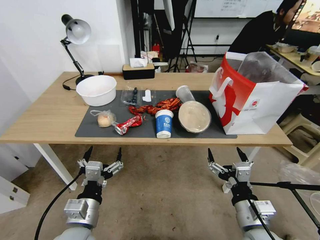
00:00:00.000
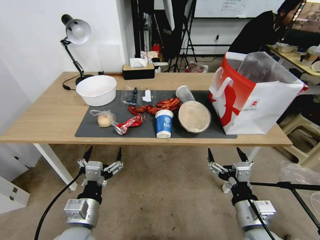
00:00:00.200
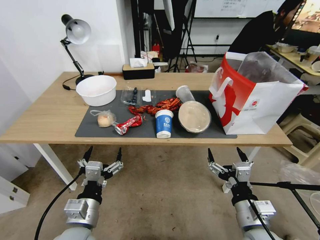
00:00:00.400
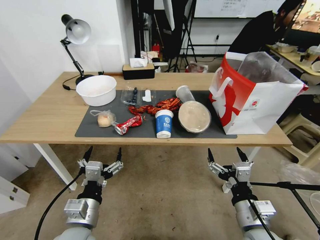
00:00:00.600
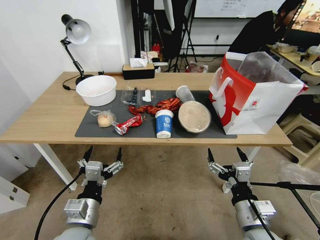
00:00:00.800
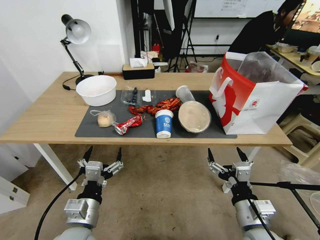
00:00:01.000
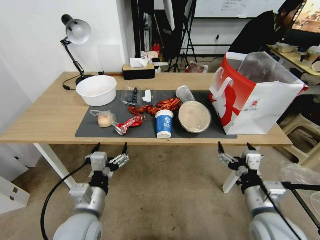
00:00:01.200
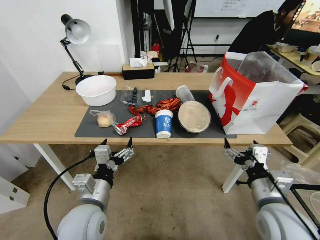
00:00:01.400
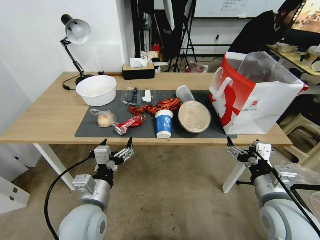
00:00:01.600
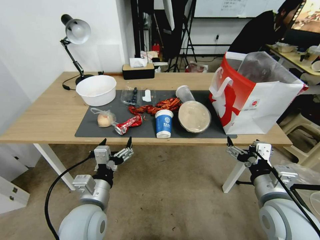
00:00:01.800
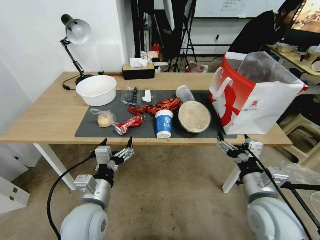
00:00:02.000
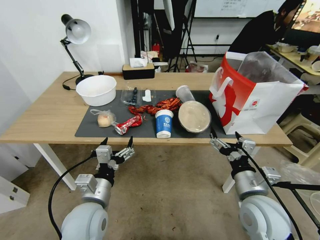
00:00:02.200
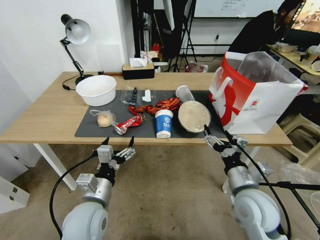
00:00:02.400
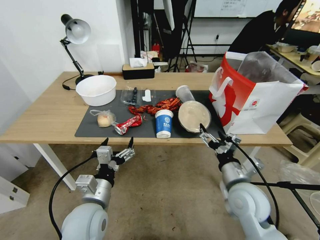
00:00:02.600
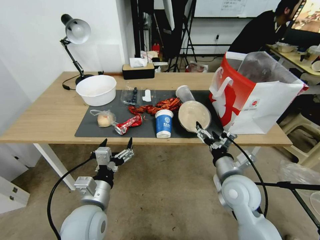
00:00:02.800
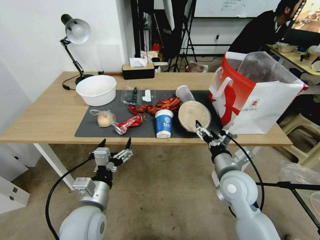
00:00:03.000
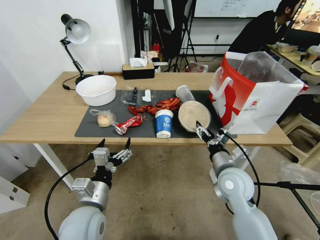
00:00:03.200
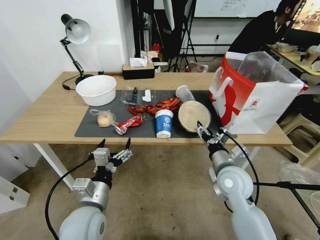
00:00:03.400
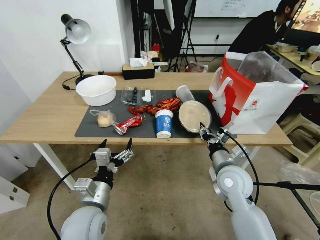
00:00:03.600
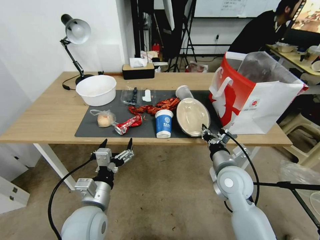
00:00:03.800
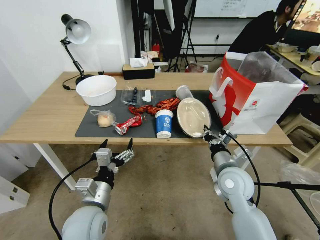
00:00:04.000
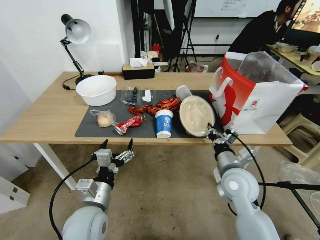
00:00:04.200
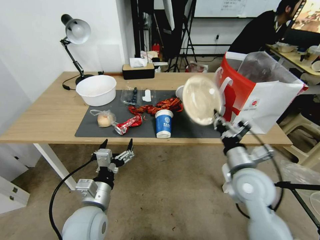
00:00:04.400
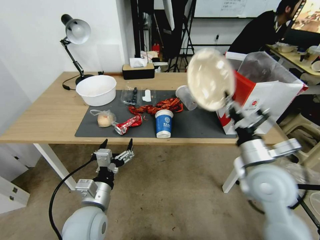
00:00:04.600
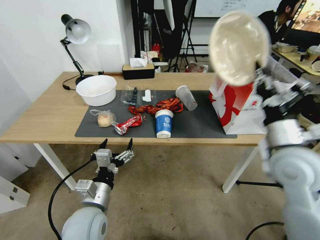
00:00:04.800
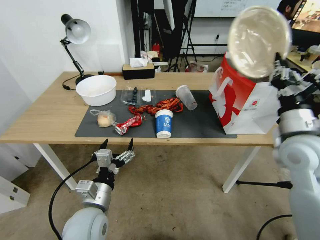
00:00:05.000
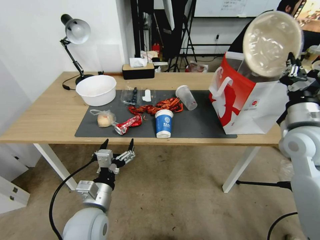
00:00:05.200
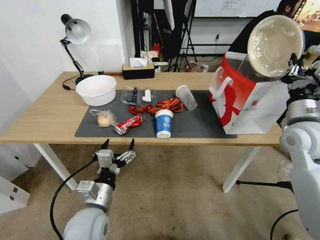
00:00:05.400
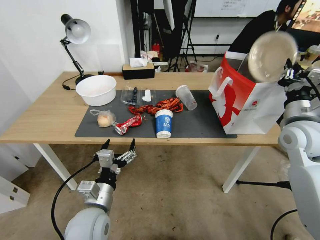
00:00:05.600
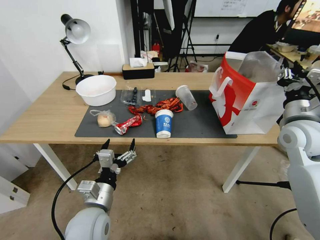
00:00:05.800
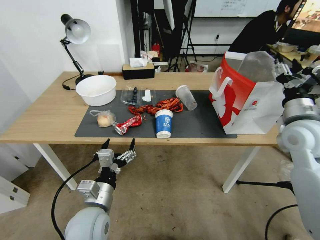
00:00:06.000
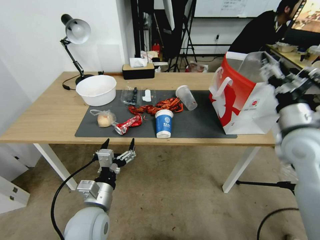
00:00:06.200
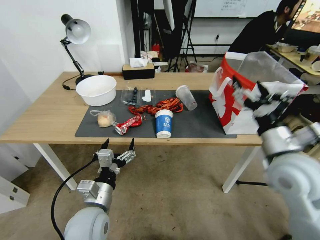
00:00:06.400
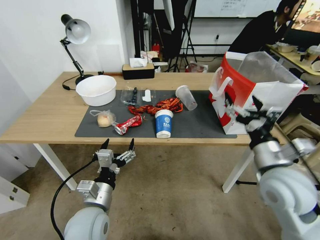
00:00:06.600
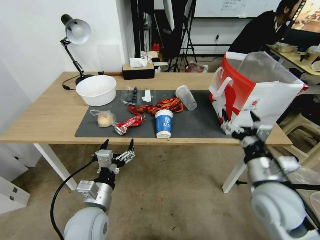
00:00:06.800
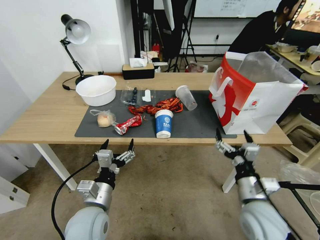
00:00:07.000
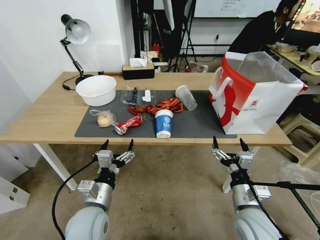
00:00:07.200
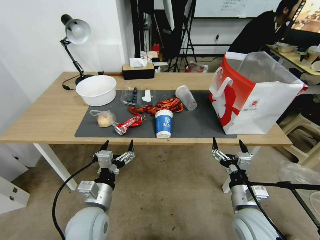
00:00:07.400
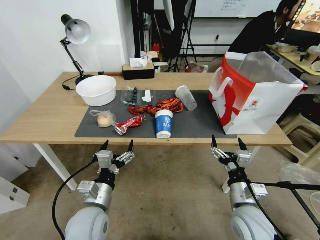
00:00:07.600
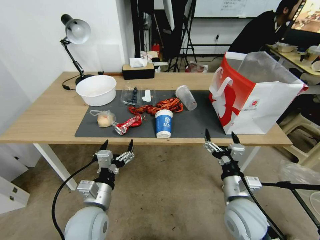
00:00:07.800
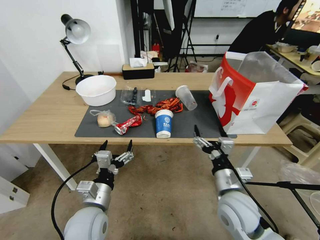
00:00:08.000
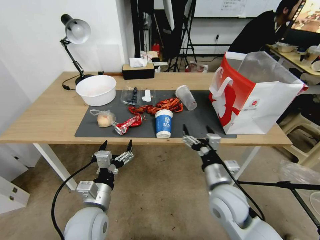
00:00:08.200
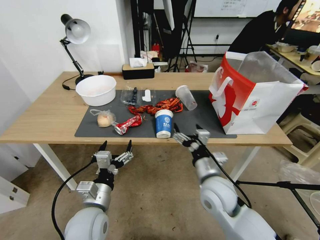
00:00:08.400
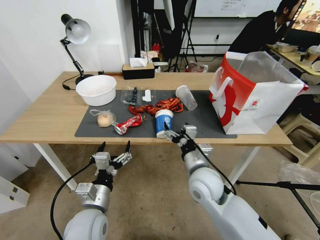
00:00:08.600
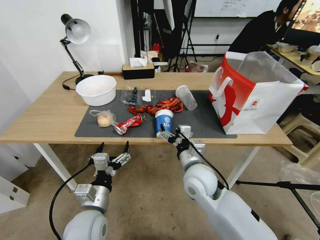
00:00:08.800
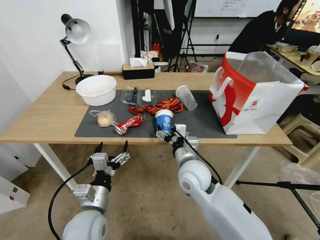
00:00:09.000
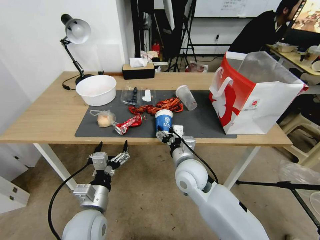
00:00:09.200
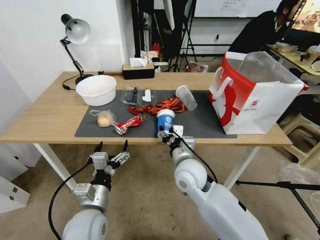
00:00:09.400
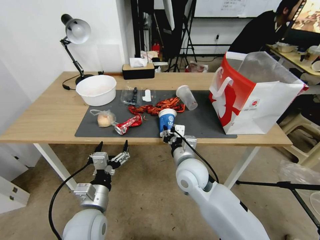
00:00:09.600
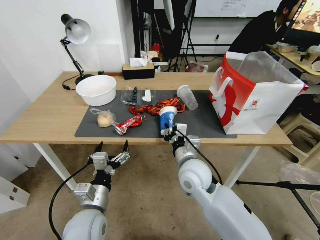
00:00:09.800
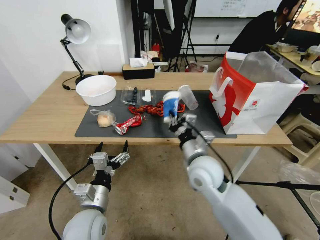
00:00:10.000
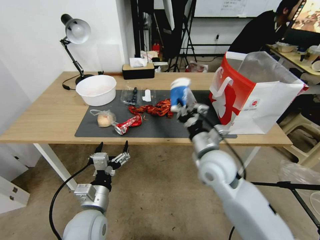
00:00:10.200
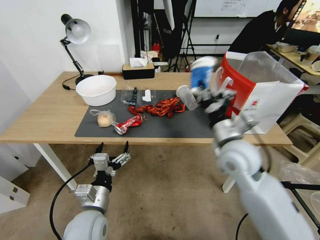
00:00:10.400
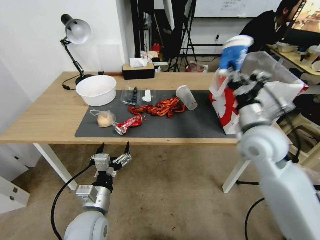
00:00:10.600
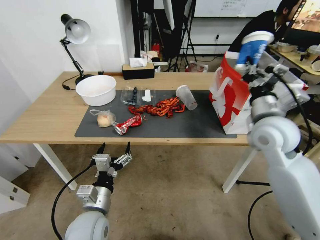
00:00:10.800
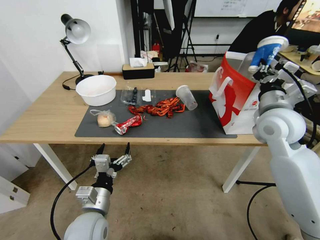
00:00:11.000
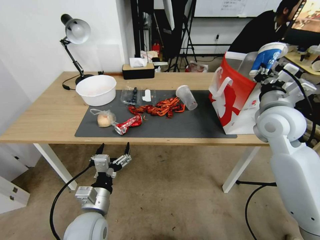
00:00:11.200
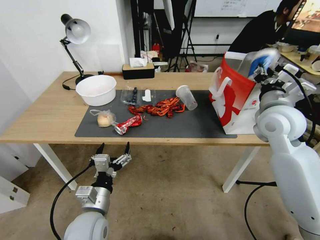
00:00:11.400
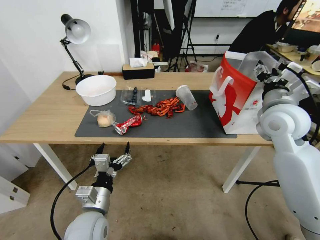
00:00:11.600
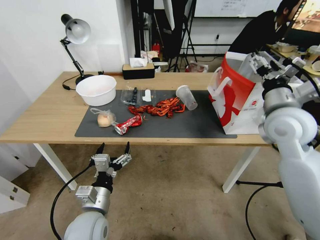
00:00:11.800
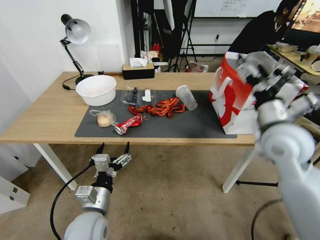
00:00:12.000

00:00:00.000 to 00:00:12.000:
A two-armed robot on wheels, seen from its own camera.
00:00:01.600 to 00:00:03.000: The right gripper goes about 10 cm forward, to the left and downward.
00:00:03.000 to 00:00:04.400: The right gripper closes its fingers.
00:00:04.400 to 00:00:06.000: The right gripper moves upward, to the right and forward, some 20 cm, and opens its fingers.
00:00:06.000 to 00:00:07.600: The right gripper shifts about 30 cm downward, backward and to the left, and opens up.
00:00:07.600 to 00:00:09.000: The right gripper heads to the left and forward, covering approximately 20 cm.
00:00:09.000 to 00:00:10.400: The right gripper moves to the right and upward, approximately 15 cm, and closes.
00:00:10.400 to 00:00:12.000: The right gripper shifts about 10 cm to the right and upward, and opens up.

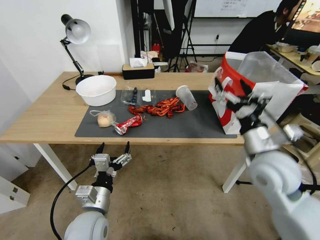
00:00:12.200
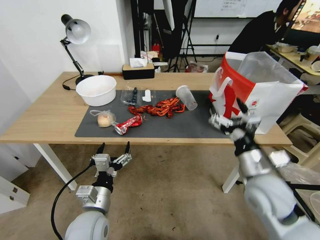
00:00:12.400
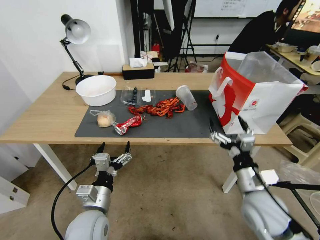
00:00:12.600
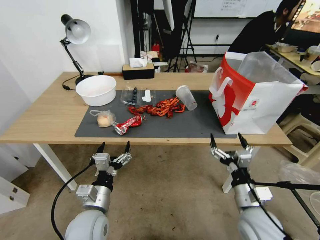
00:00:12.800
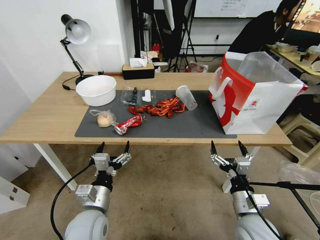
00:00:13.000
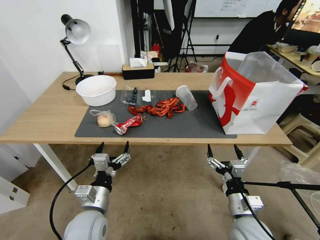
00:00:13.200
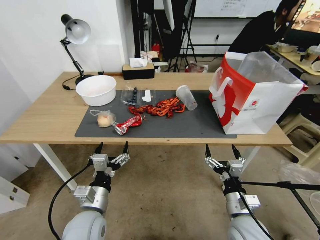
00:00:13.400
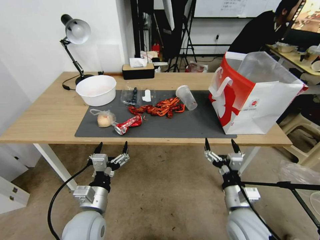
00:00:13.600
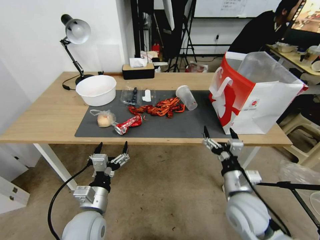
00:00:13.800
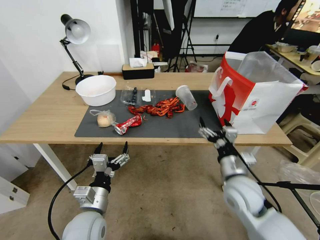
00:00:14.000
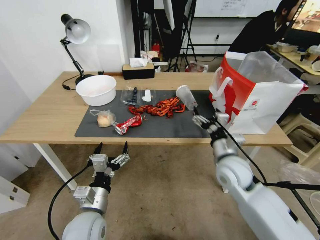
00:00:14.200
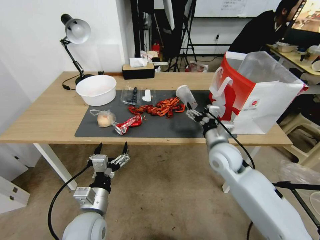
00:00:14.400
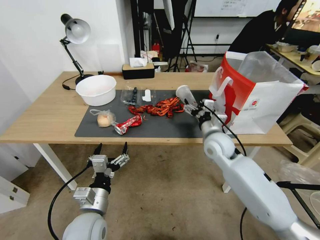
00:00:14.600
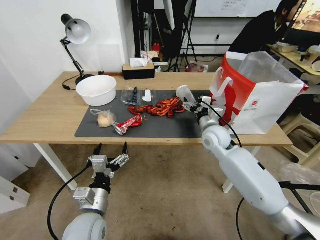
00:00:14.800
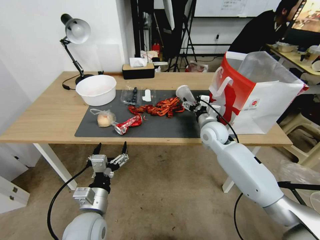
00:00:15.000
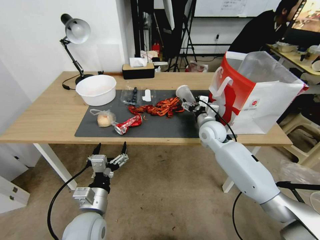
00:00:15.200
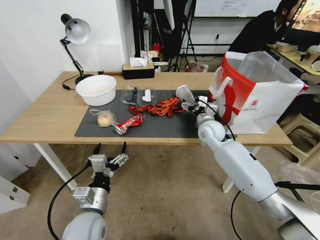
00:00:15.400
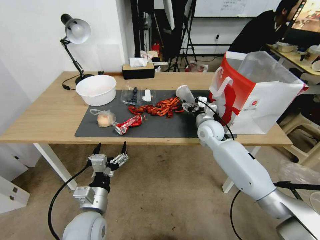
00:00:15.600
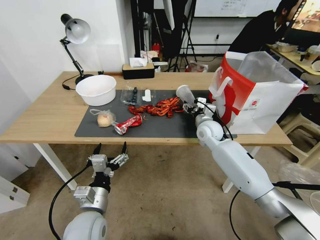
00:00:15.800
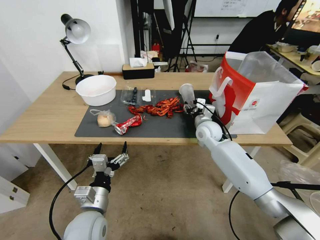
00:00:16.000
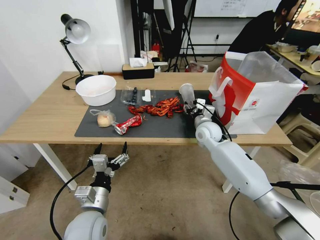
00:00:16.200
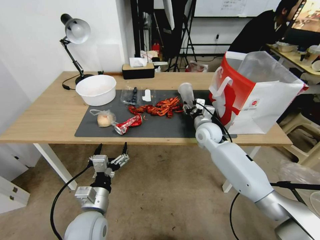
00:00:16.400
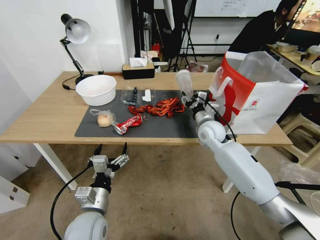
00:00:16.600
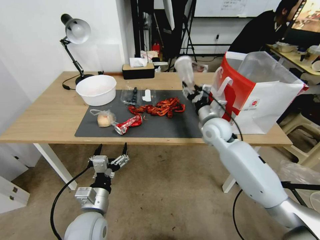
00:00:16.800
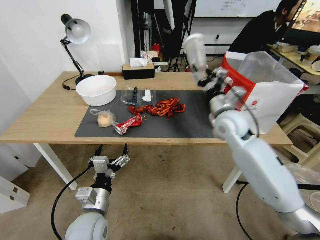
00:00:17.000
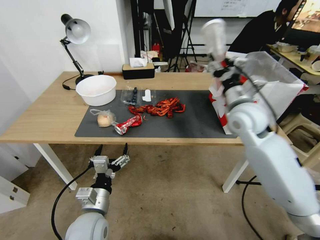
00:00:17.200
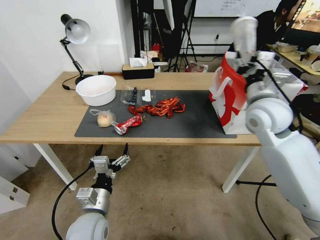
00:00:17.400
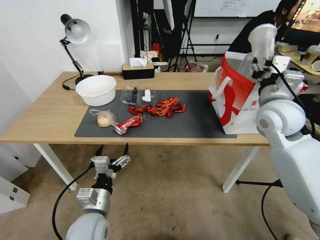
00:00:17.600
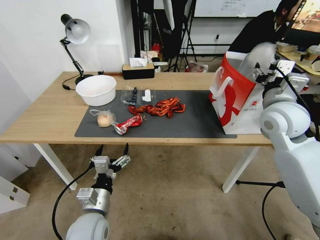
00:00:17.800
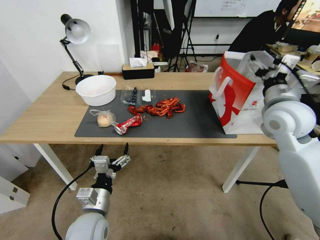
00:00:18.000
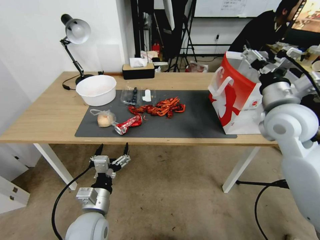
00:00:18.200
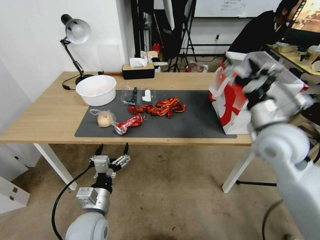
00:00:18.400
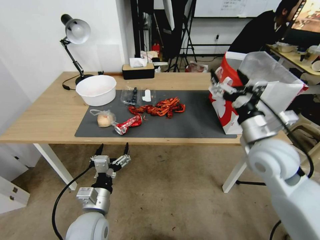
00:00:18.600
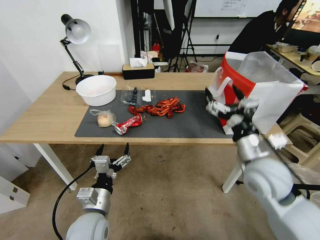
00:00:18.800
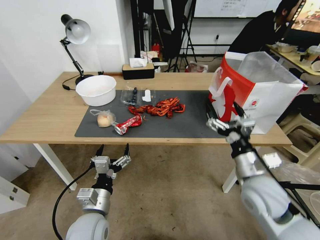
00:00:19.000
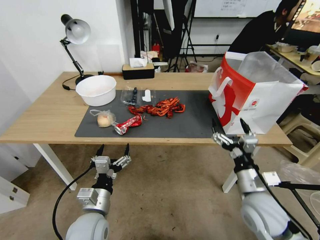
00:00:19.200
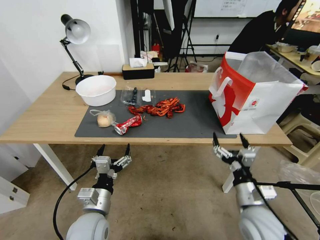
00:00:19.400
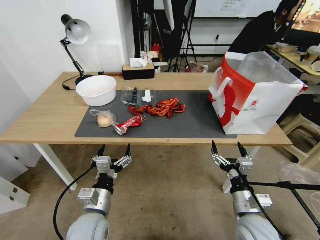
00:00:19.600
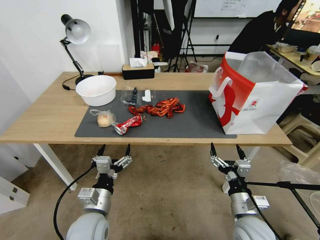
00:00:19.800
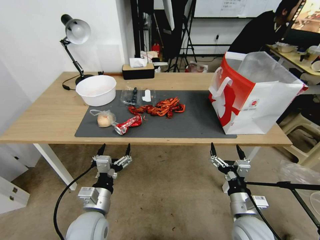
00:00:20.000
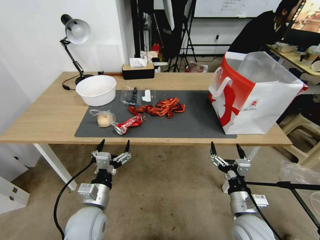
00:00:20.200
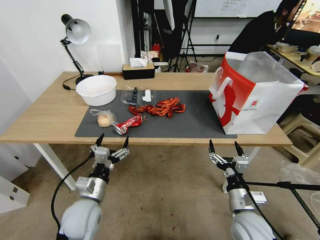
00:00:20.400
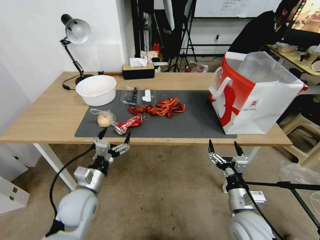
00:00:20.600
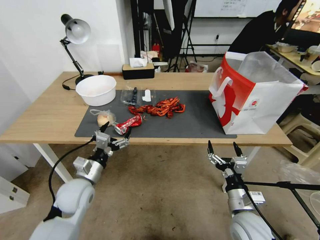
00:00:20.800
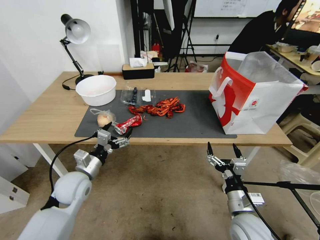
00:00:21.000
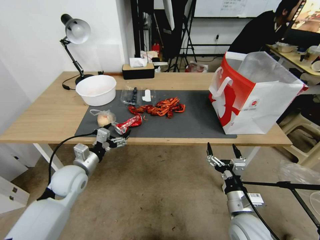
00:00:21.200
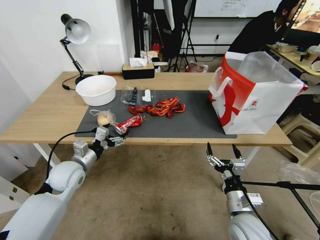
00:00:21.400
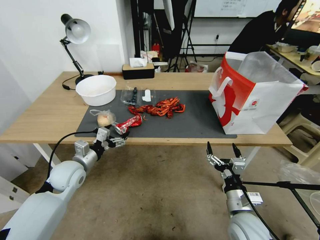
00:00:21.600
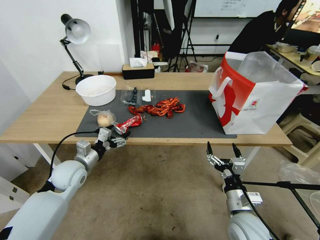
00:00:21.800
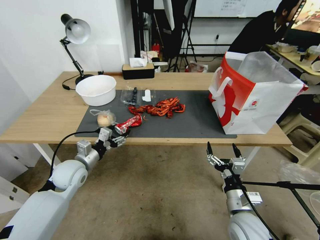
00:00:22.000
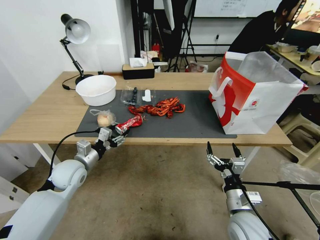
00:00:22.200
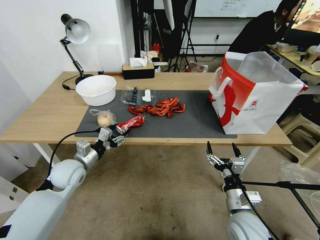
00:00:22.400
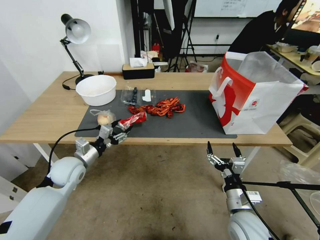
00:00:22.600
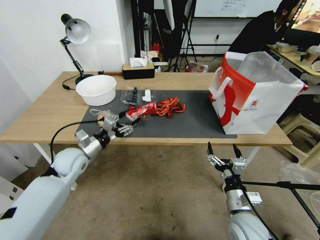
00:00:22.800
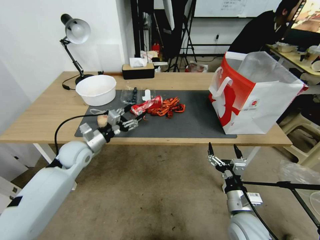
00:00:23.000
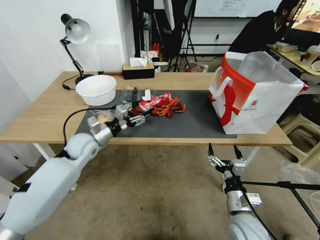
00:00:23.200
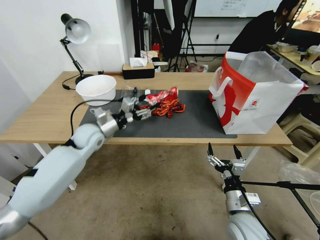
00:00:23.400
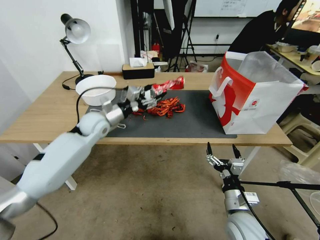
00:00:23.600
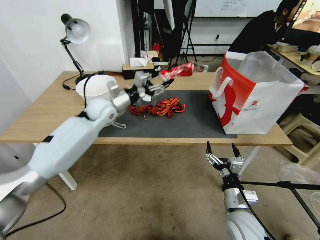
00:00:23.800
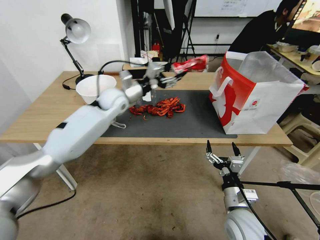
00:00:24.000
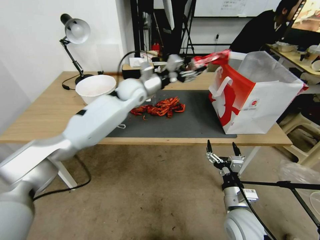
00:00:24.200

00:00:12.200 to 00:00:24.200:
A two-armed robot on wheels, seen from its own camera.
00:00:12.200 to 00:00:13.800: The right gripper is displaced downward and backward by about 15 cm.
00:00:13.800 to 00:00:15.200: The right gripper moves forward, roughly 25 cm.
00:00:15.200 to 00:00:16.600: The right gripper closes.
00:00:16.600 to 00:00:18.200: The right gripper moves upward, backward and to the right, some 25 cm, and opens.
00:00:18.200 to 00:00:19.800: The right gripper travels downward and backward by roughly 30 cm.
00:00:19.800 to 00:00:21.200: The left gripper is displaced forward and to the left by some 15 cm.
00:00:21.200 to 00:00:22.600: The left gripper closes up.
00:00:22.600 to 00:00:24.200: The left gripper heads forward, to the right and upward, covering approximately 35 cm.
